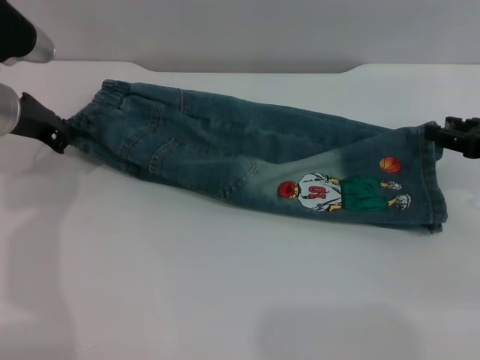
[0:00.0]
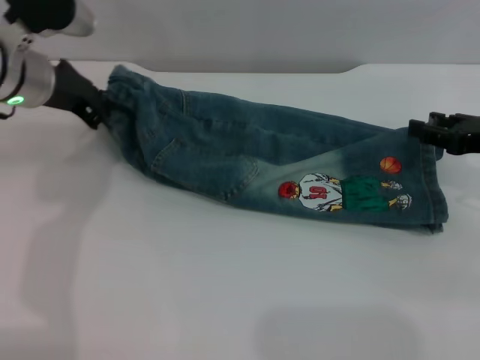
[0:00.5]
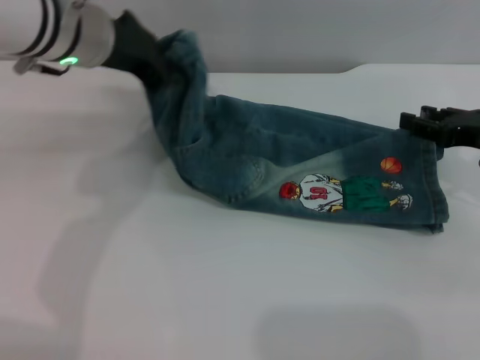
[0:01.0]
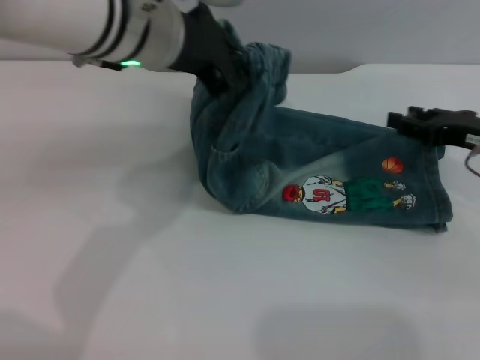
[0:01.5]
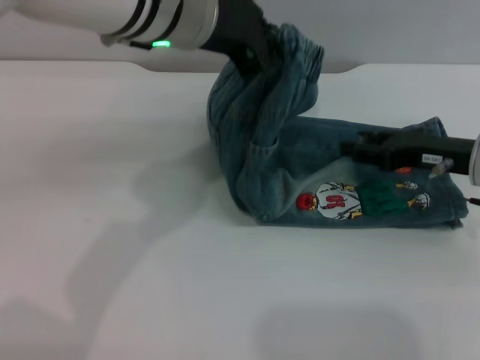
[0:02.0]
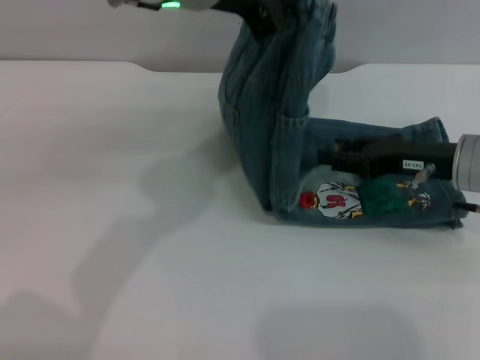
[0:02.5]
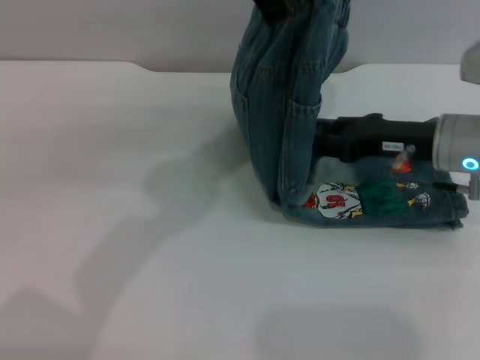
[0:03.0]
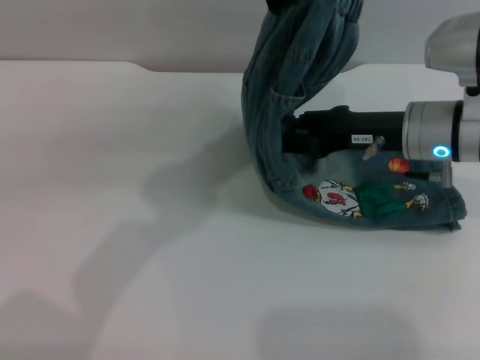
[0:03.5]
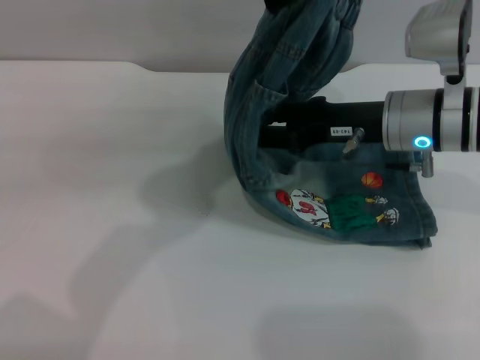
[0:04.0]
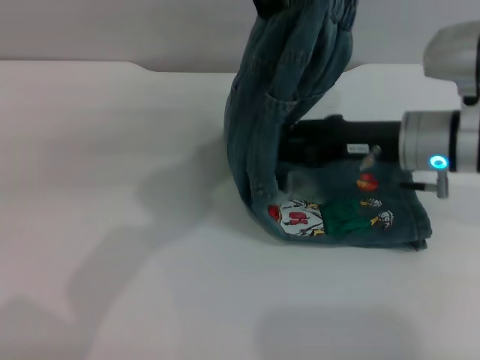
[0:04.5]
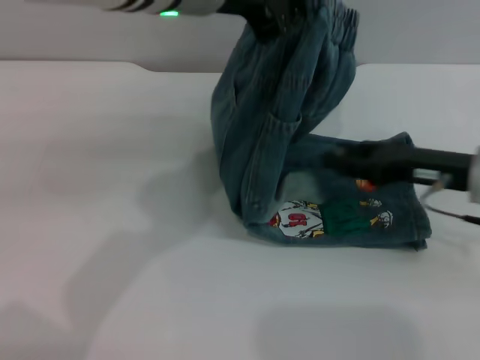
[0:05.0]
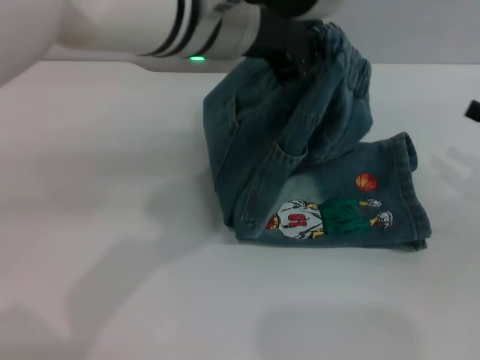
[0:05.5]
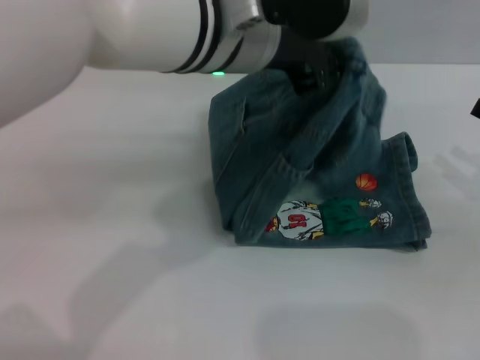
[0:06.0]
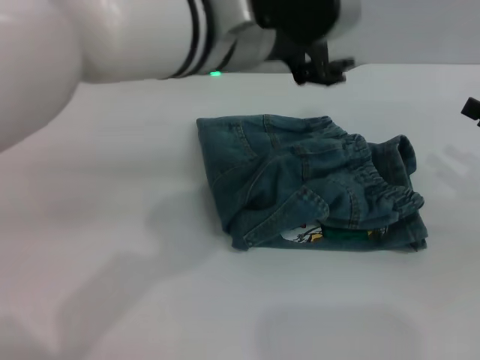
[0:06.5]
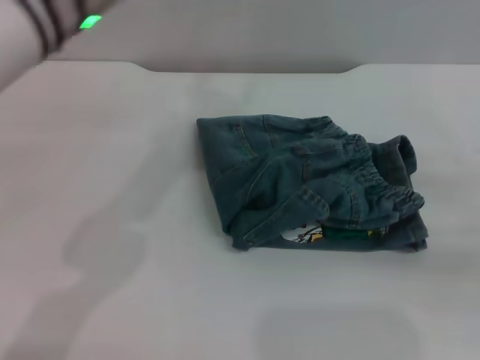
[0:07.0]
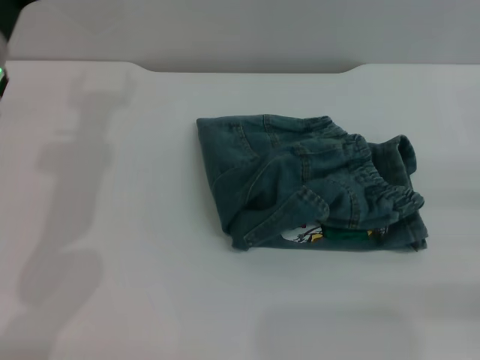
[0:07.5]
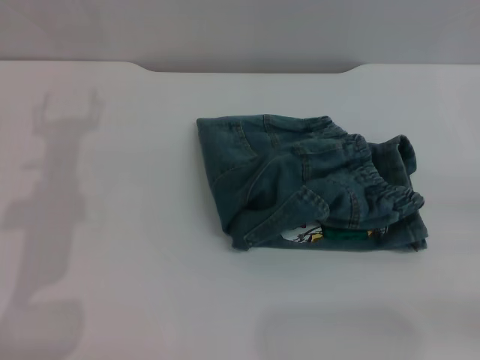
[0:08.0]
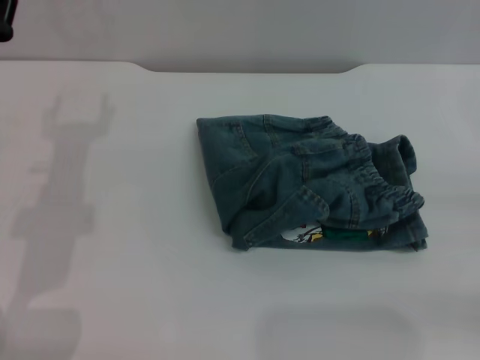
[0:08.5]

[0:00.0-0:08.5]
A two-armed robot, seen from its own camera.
Step, 0:00.0 to 0:06.0: Fold the pants from left to right with the left gripper.
0:00.0 to 0:02.0: The left gripper is displaced to the right and upward by approximately 25 cm; the right gripper moves to the left, roughly 5 cm.
0:02.0 to 0:04.0: The left gripper heads upward, covering approximately 5 cm; the right gripper shifts roughly 10 cm to the left.
0:04.0 to 0:06.5: The left gripper moves downward, approximately 5 cm, and opens its fingers, while the right gripper shifts approximately 20 cm to the right and backward.
0:06.5 to 0:08.5: The right gripper goes some 5 cm backward; the left gripper shifts roughly 25 cm to the left and downward.
